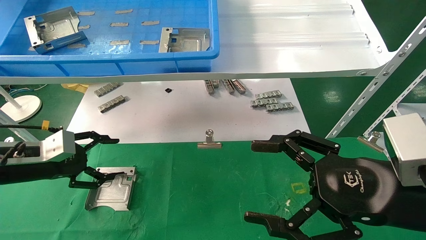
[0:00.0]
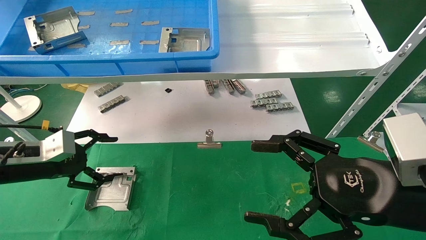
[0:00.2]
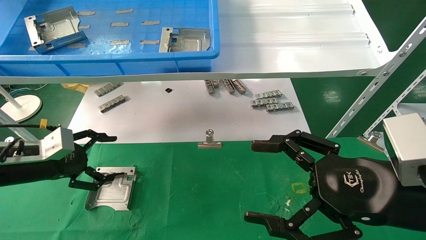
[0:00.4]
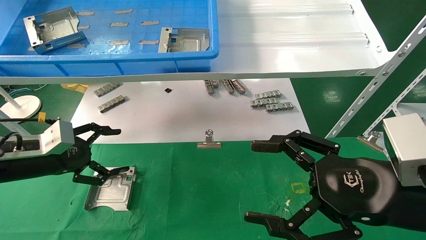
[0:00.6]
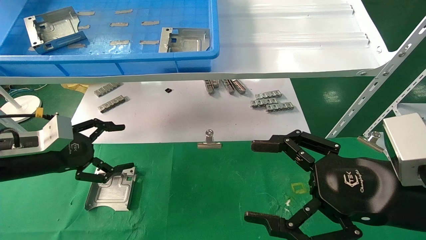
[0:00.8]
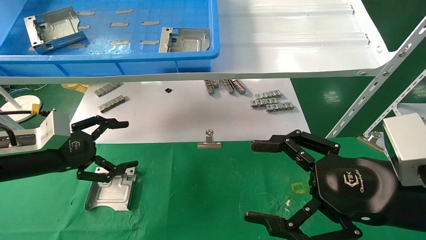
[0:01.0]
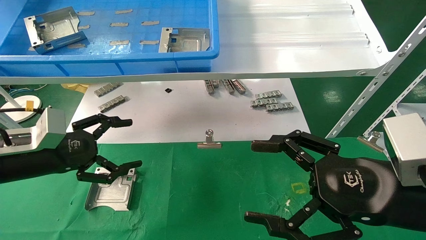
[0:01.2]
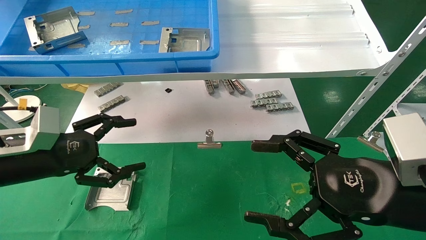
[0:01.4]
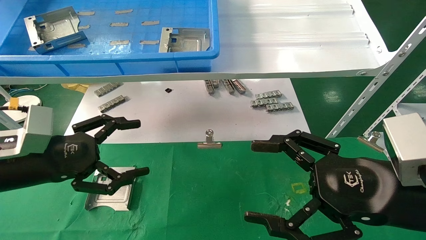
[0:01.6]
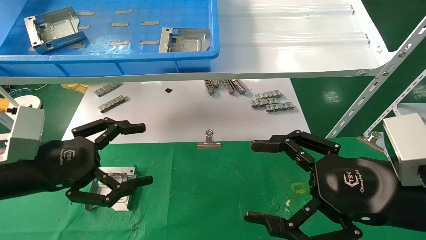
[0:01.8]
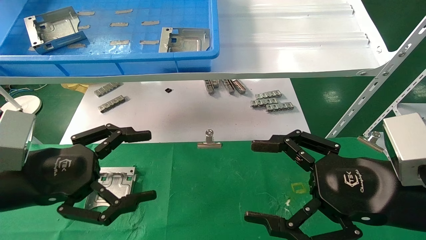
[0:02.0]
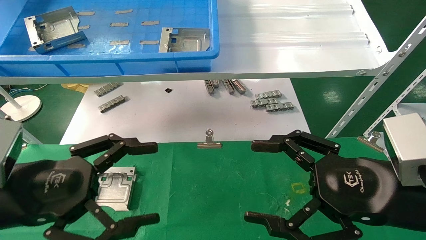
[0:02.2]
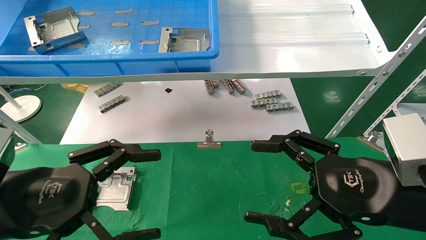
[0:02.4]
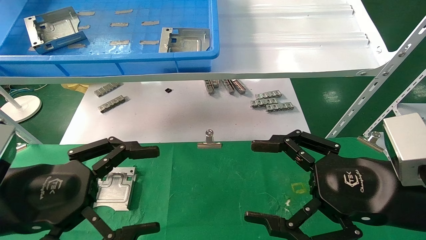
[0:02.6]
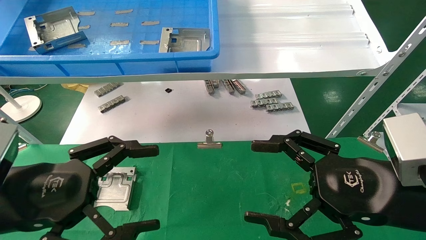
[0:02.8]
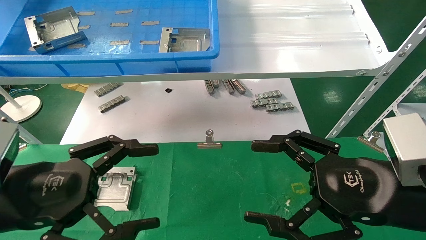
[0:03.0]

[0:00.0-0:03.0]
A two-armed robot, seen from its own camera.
Task of the whole recording: use the mechanical arm to pick up the parts and place them on the table.
0.0 to 1.6 s: The left gripper travels backward and to the right by some 10 cm.
1.6 to 3.0 s: The left gripper is displaced backward by roughly 10 cm.

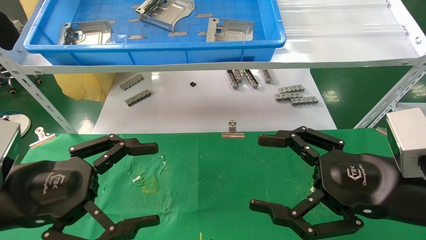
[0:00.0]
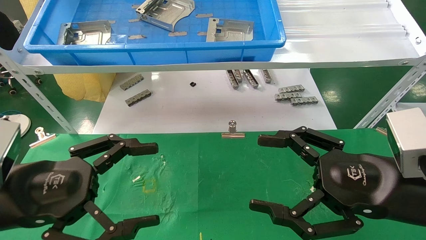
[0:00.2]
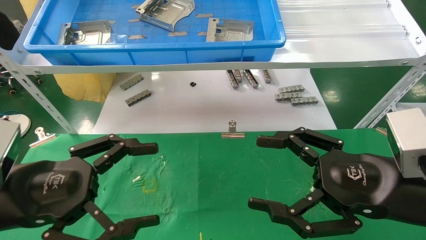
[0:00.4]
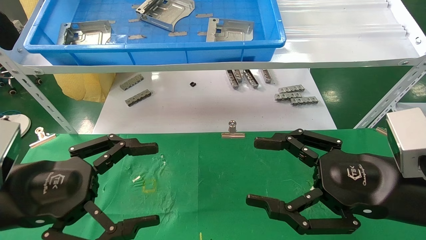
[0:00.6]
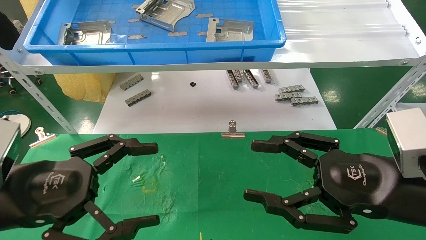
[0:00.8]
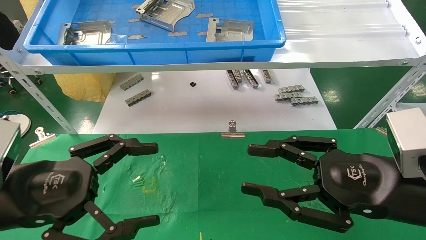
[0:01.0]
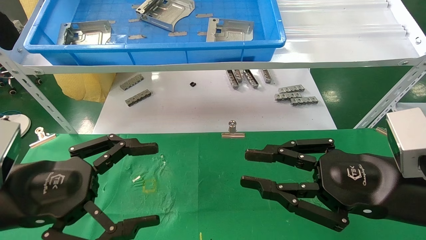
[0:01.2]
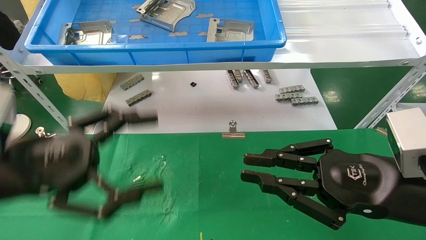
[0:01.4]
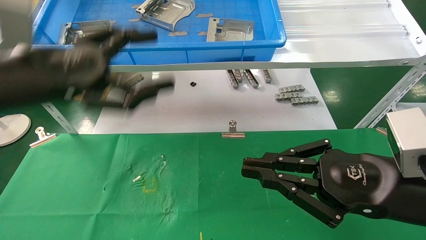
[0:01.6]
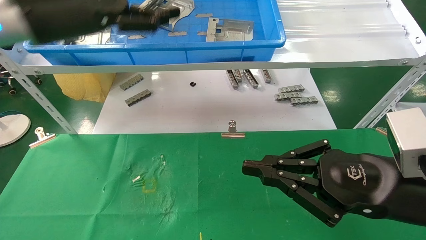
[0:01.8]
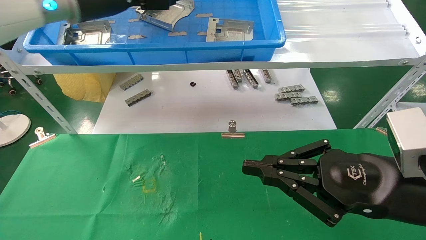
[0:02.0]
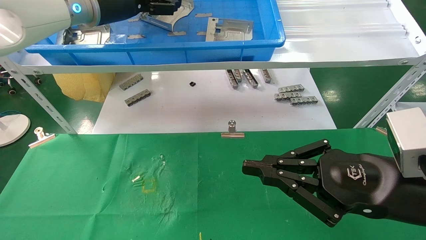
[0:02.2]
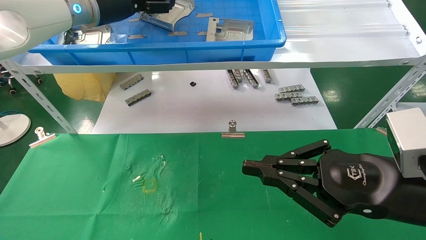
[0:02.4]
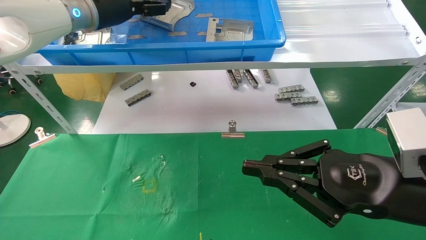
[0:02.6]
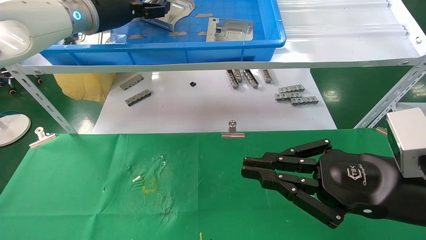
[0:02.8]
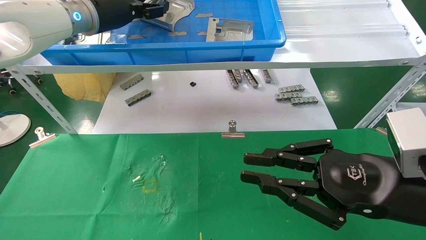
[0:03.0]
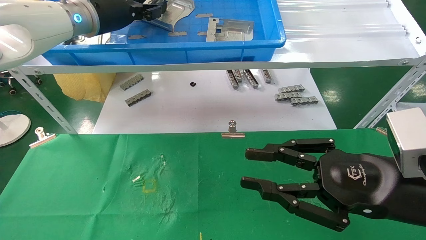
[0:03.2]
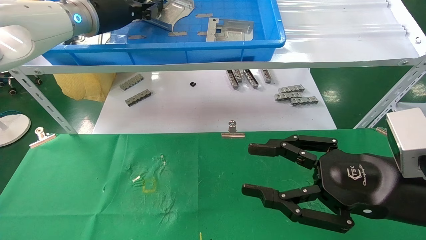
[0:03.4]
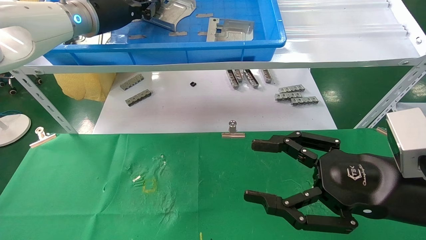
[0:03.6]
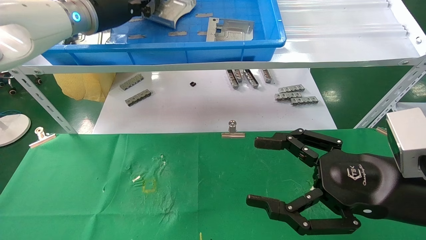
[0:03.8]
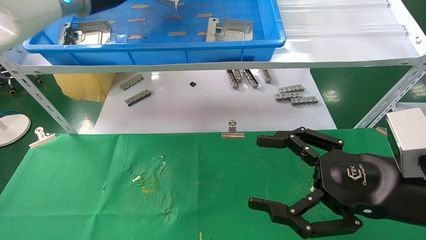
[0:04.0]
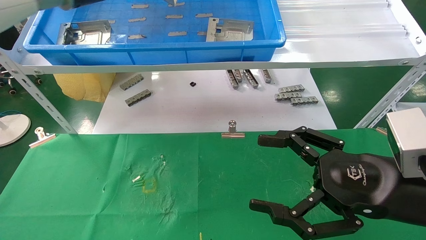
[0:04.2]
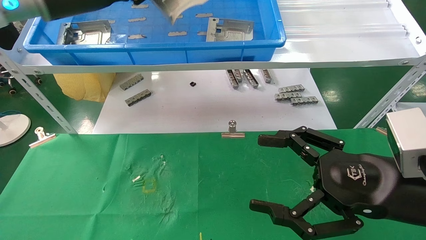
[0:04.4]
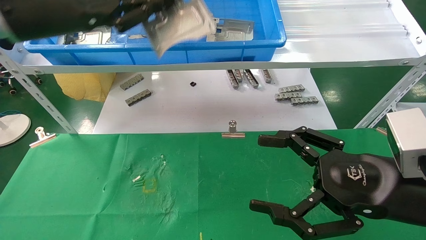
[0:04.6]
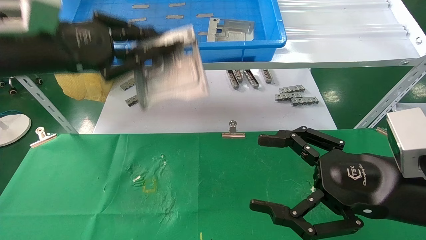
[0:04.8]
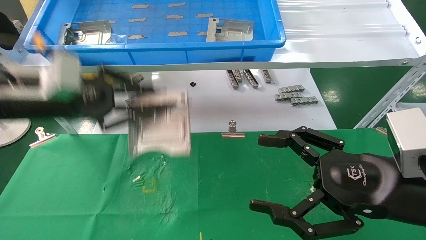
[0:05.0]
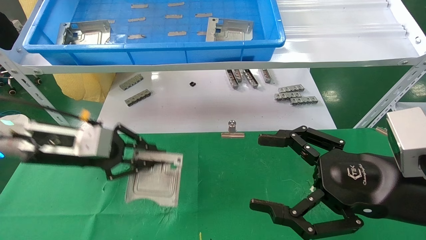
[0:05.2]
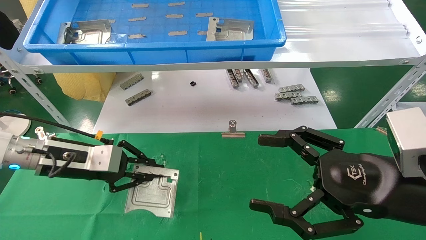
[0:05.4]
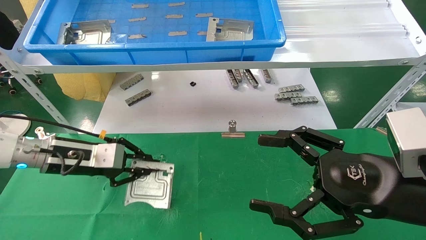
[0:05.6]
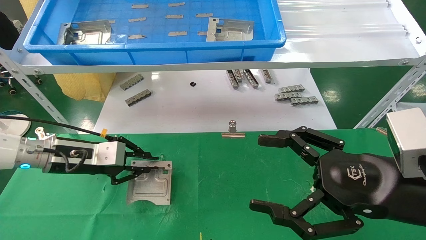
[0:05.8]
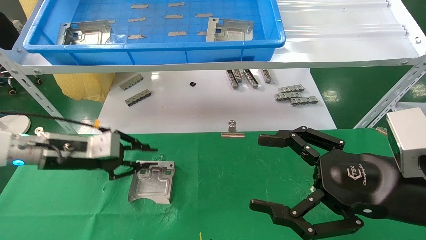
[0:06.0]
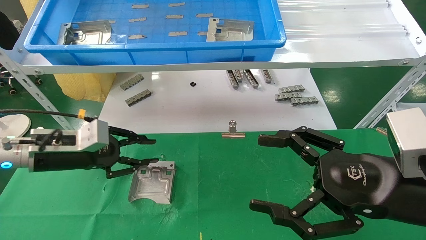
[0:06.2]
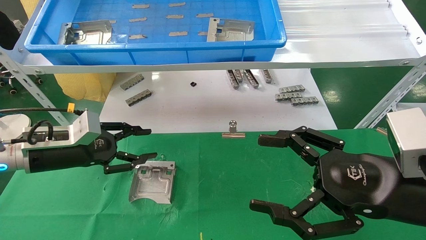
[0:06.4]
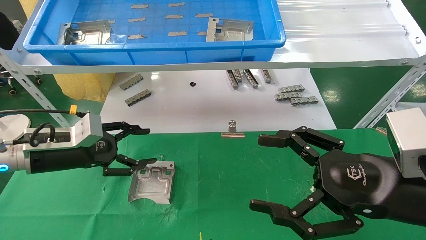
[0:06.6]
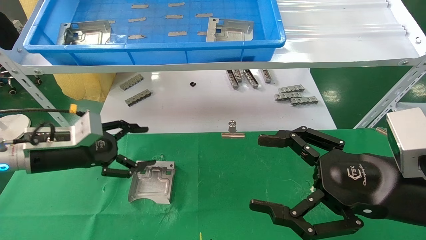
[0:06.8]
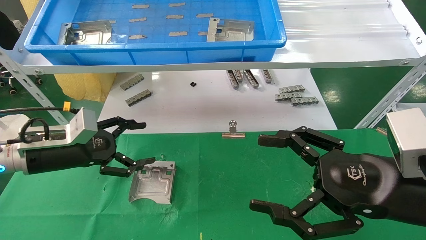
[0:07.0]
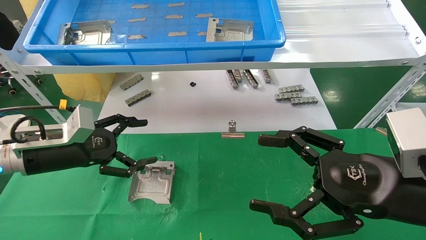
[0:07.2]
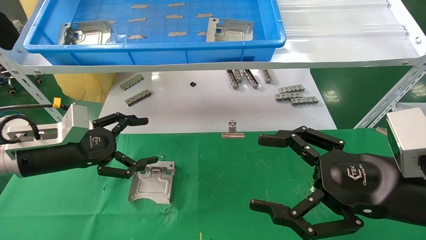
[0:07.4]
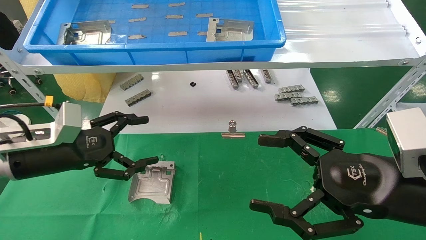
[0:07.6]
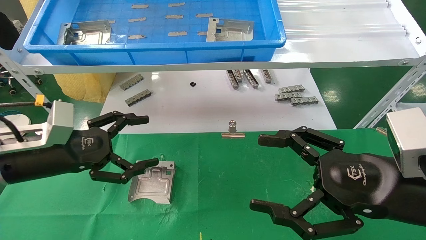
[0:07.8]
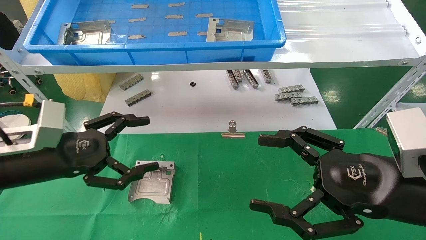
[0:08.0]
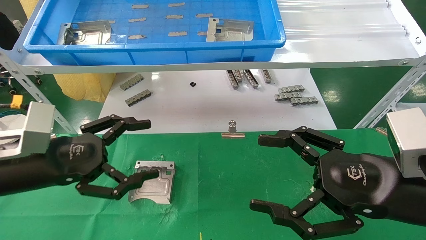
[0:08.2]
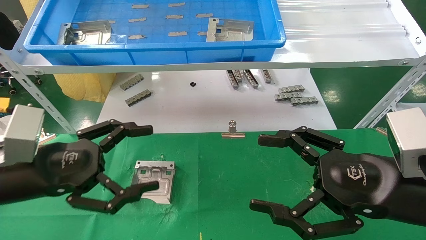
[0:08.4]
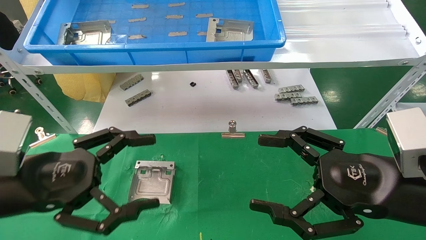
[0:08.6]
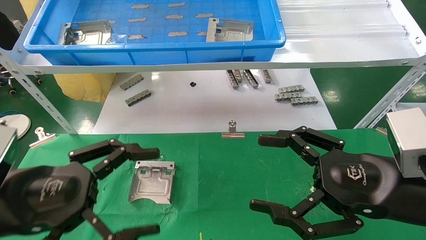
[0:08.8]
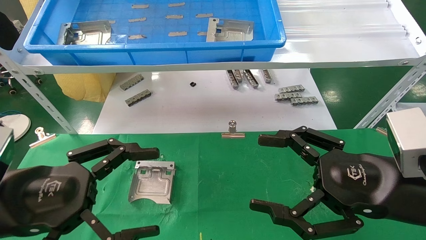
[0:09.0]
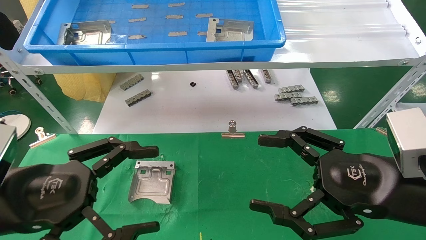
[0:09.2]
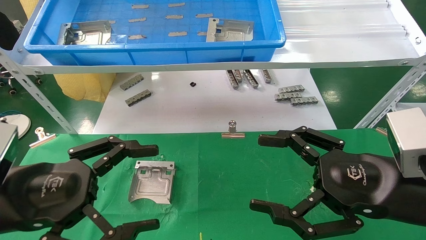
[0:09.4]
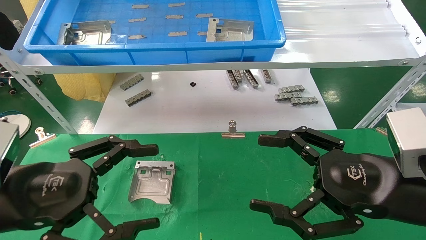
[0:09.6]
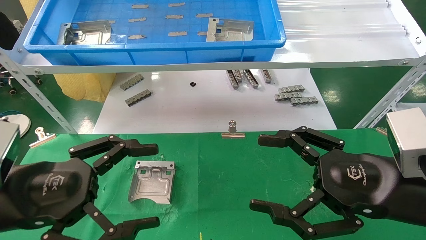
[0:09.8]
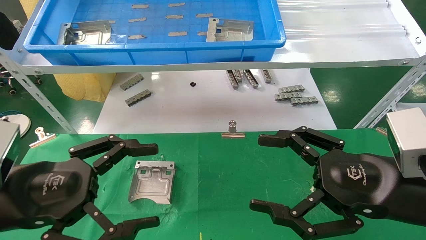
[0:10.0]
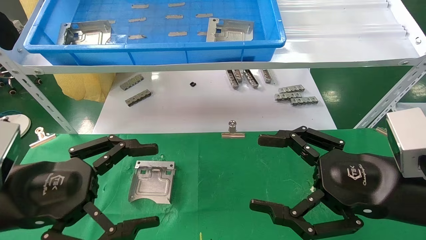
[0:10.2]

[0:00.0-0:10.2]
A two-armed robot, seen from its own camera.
Task of the whole recording: use the mechanical arm to pick up the parts and place them on the table.
Step, 1.6 to 3.2 s: Pick up the hard drive bracket from the feeding area.
Step, 3.4 to 7.2 s: Place the hard drive bracket into the box.
0.0 to 1.4 s: The left gripper goes some 5 cm upward. Meanwhile the right gripper closes up.
1.4 to 3.0 s: The left gripper is displaced forward and upward by some 30 cm.
3.0 to 4.4 s: The right gripper opens its fingers, while the left gripper heads backward, covering approximately 10 cm, and closes its fingers.
4.4 to 5.8 s: The left gripper travels downward by roughly 25 cm.
5.8 to 7.2 s: The left gripper opens up.
7.2 to 8.8 s: The left gripper is displaced backward by approximately 15 cm.
8.8 to 10.2 s: The two grippers keep their place.

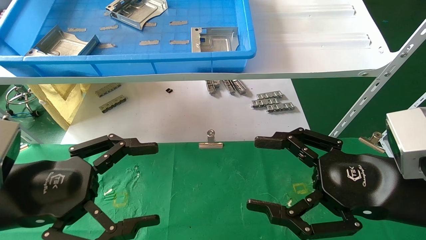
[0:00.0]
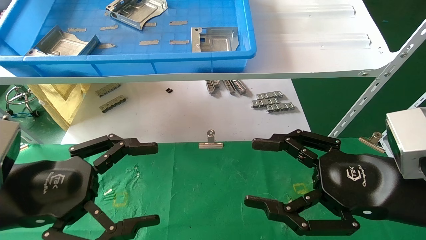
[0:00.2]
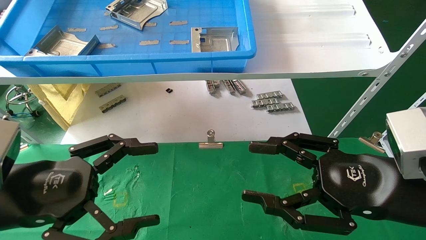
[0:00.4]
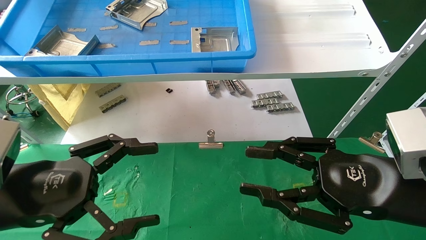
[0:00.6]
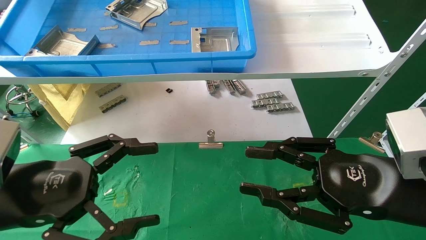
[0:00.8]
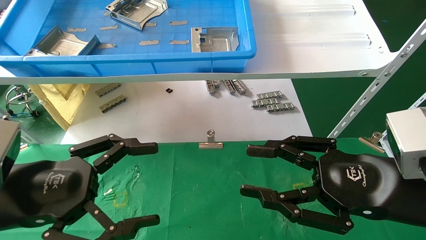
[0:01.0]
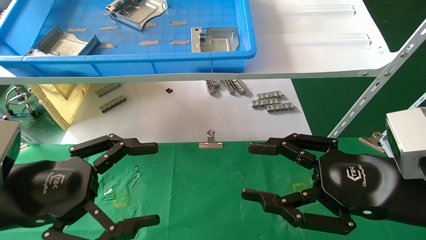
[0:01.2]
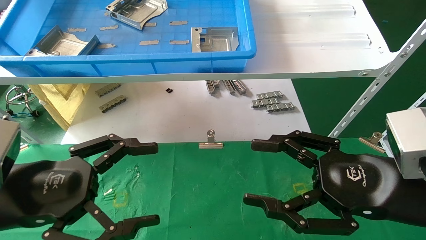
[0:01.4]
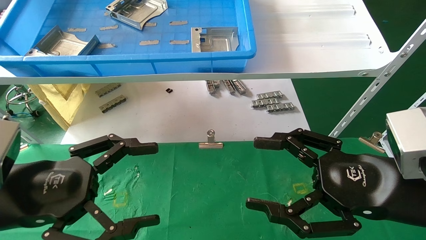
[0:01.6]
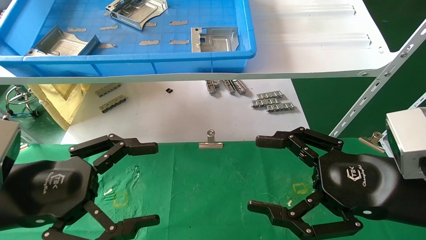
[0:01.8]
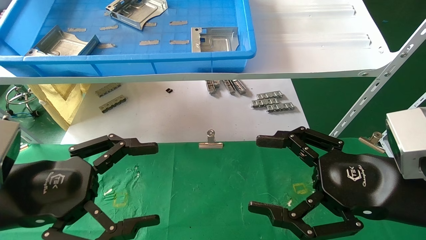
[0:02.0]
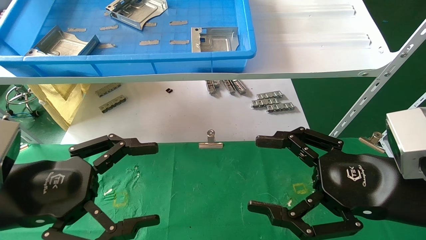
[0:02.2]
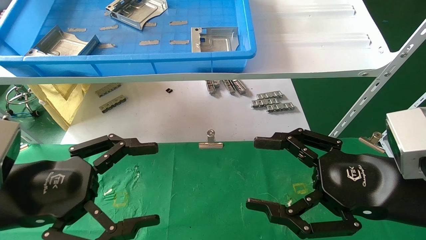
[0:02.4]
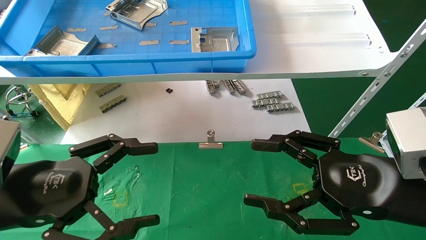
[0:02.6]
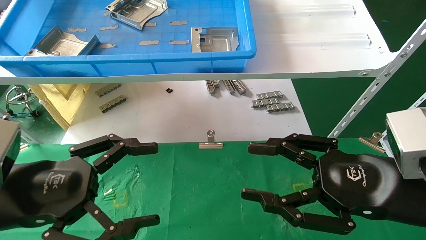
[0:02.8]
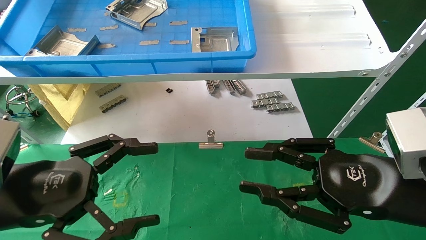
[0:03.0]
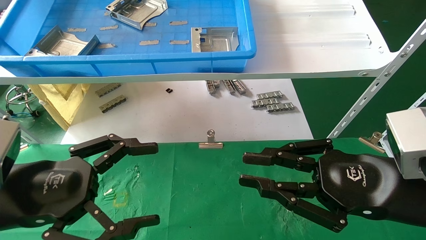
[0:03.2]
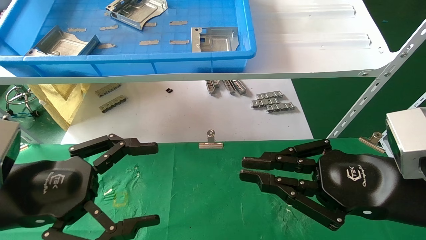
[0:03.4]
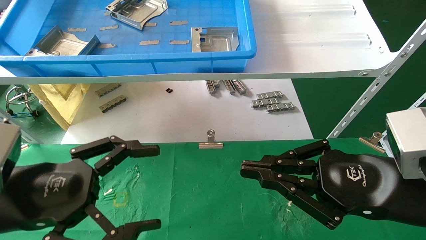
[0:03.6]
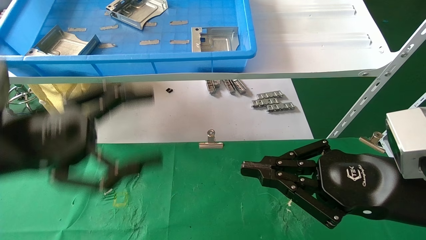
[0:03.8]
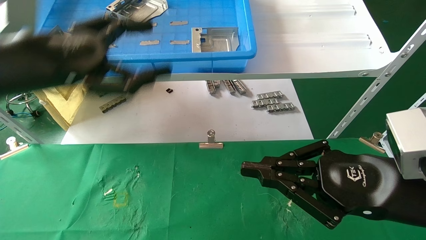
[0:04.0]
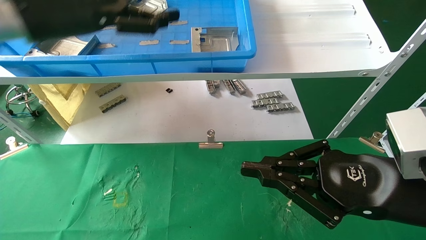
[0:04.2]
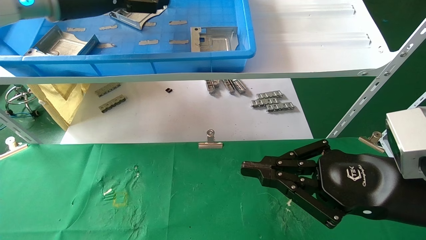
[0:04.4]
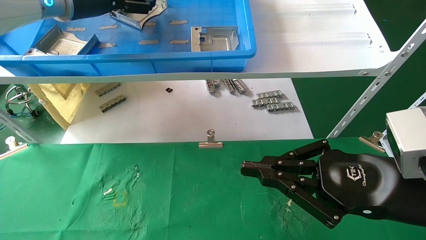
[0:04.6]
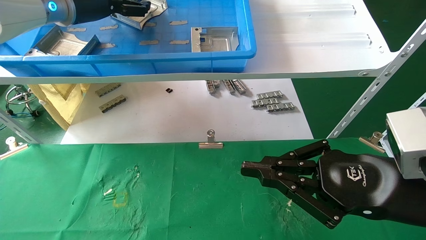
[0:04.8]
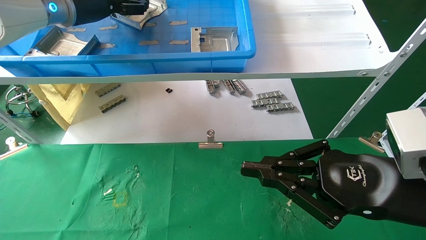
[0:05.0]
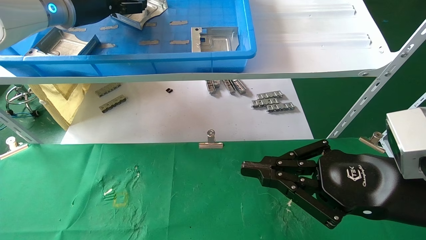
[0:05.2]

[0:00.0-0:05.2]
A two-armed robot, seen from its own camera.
Task of the whole recording: use the mechanical arm to pick up the parts and place them on the table.
1.8 to 3.4 s: The right gripper closes.
3.4 to 5.2 s: The left gripper shifts about 35 cm forward and upward.
